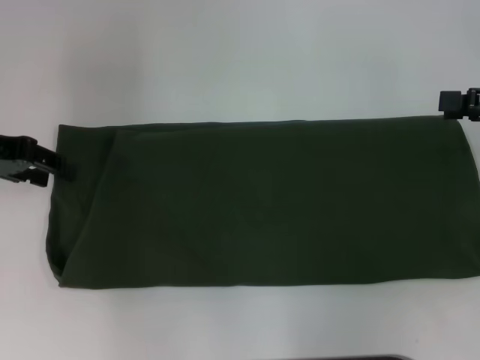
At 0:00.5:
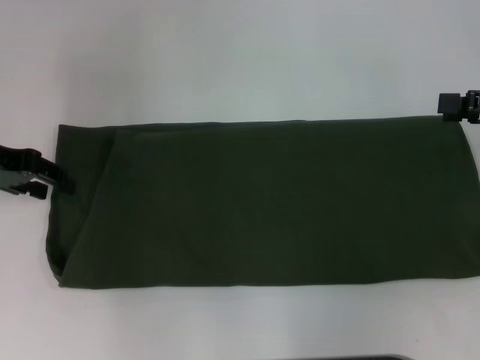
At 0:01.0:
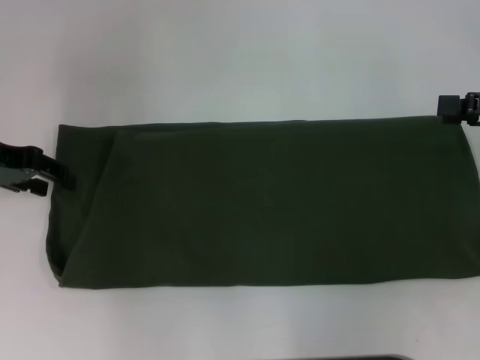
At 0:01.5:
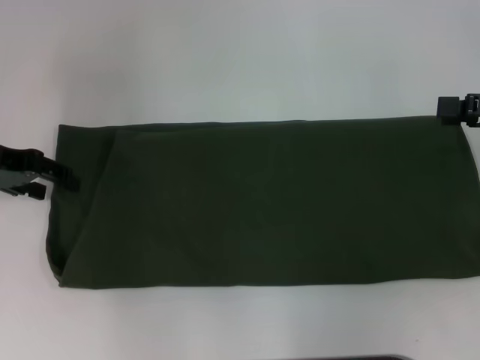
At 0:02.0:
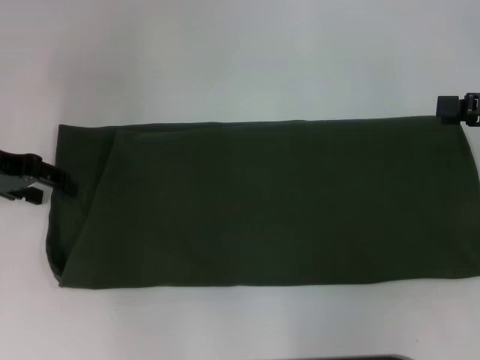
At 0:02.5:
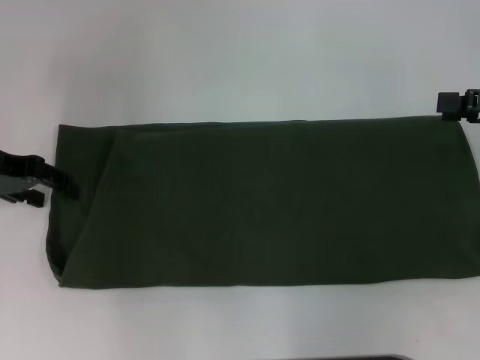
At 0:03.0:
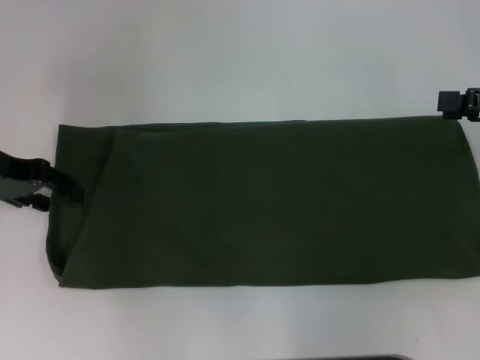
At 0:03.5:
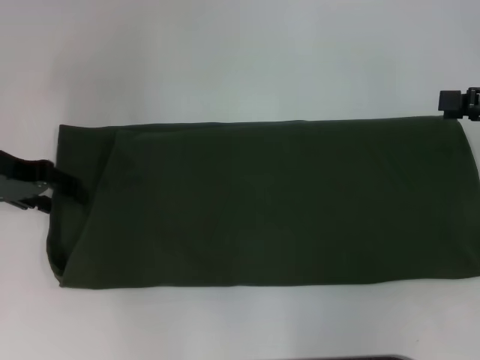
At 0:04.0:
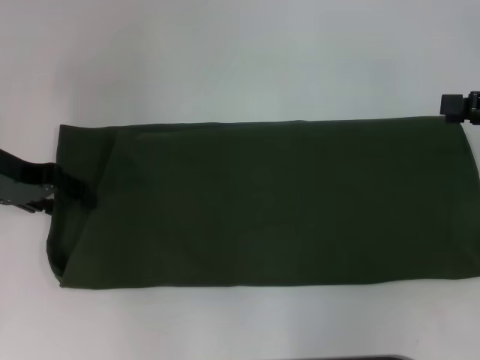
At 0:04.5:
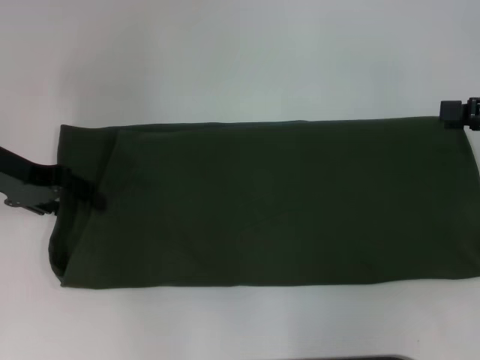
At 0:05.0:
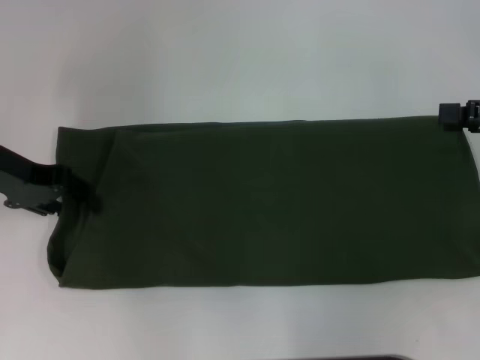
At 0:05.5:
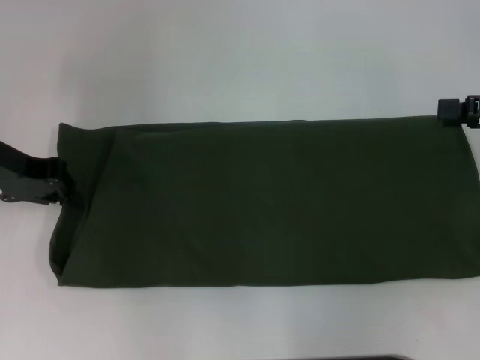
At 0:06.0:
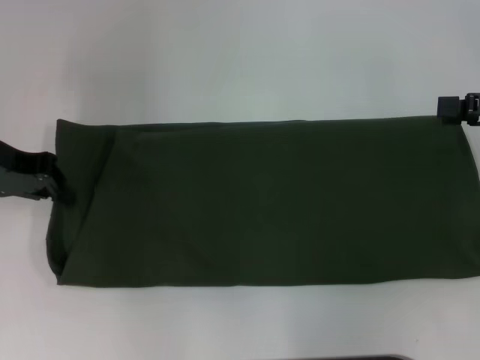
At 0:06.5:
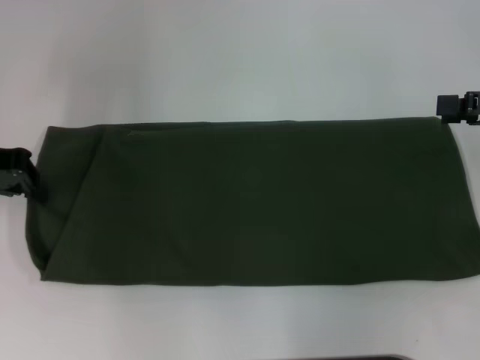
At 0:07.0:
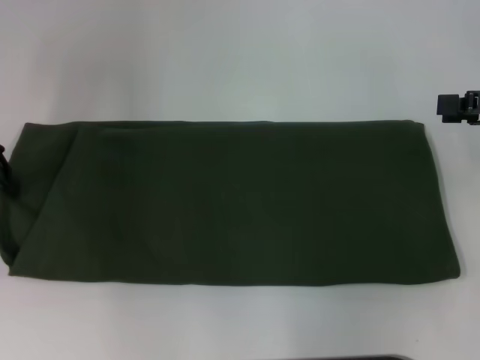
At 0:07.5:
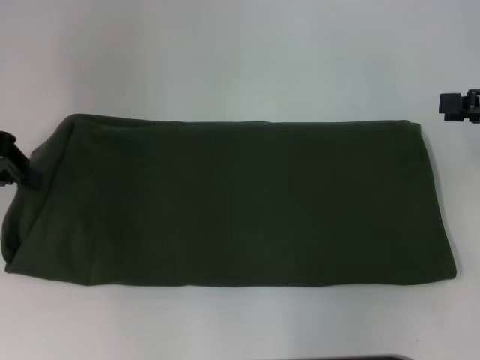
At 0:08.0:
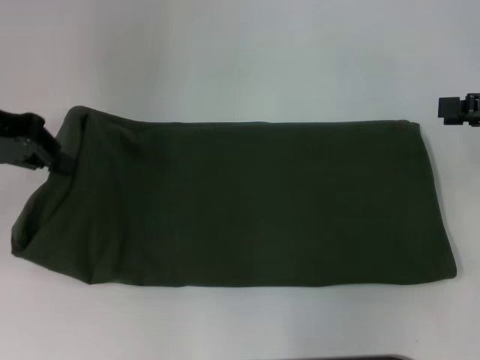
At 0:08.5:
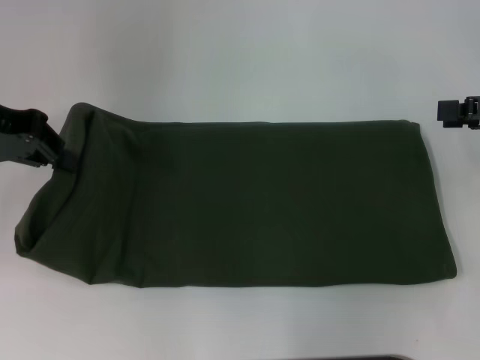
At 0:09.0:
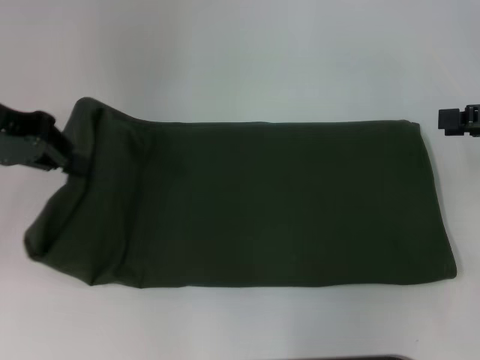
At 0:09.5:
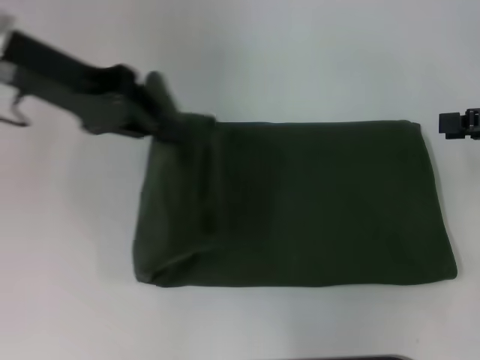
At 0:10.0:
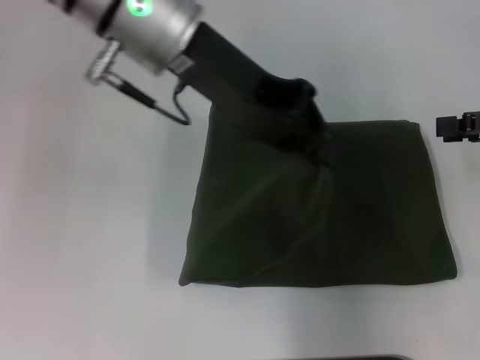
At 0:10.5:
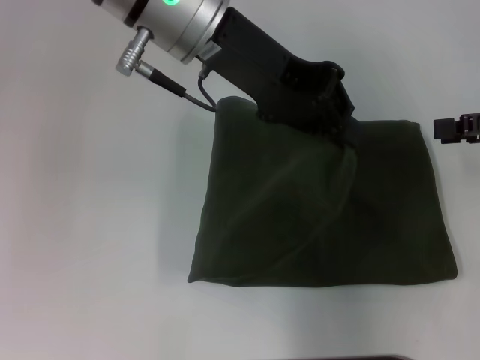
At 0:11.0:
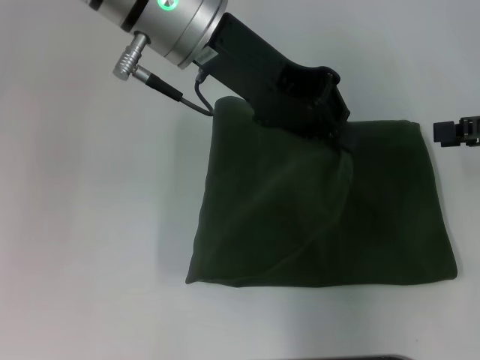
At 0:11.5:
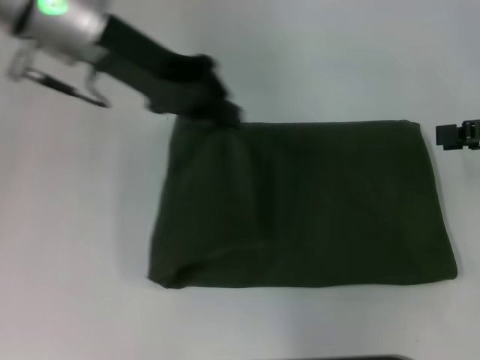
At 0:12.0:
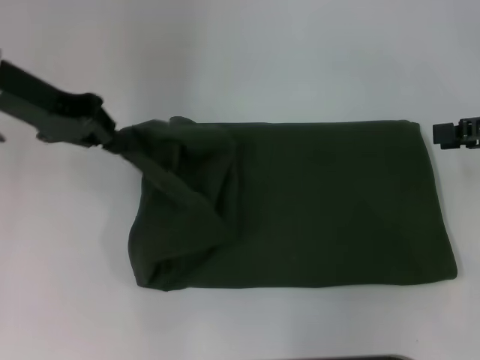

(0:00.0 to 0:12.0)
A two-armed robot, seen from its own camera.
0:00.0 - 0:04.0: The grippers make only small movements.
0:04.0 - 0:06.0: The left gripper closes up.
0:06.0 - 0:08.0: The left gripper ends up some 5 cm from where it was.
0:08.0 - 0:10.0: The left gripper is displaced to the right by approximately 20 cm.
0:10.0 - 0:12.0: The left gripper moves to the left, roughly 15 cm.

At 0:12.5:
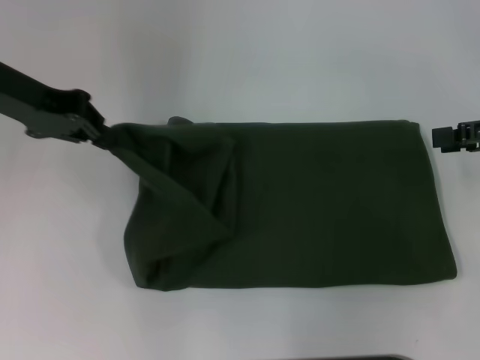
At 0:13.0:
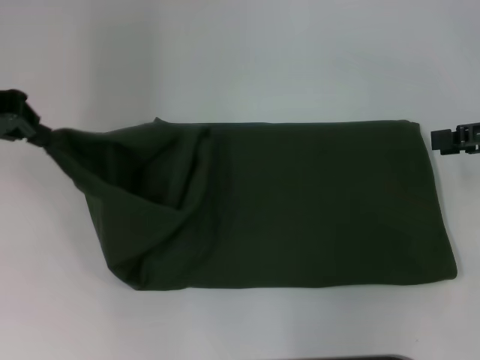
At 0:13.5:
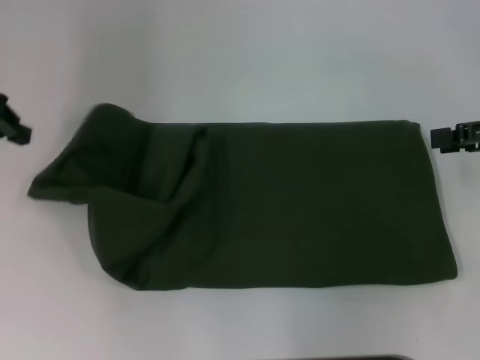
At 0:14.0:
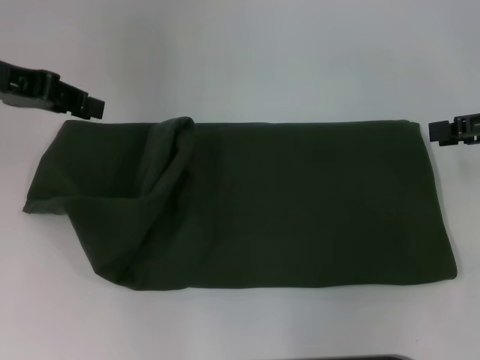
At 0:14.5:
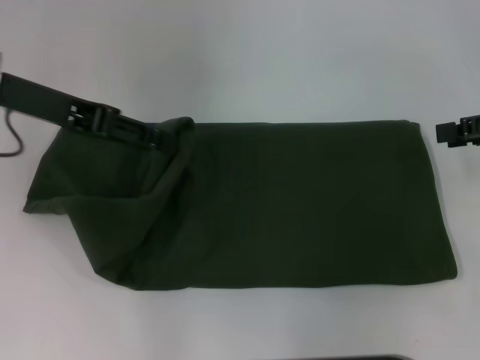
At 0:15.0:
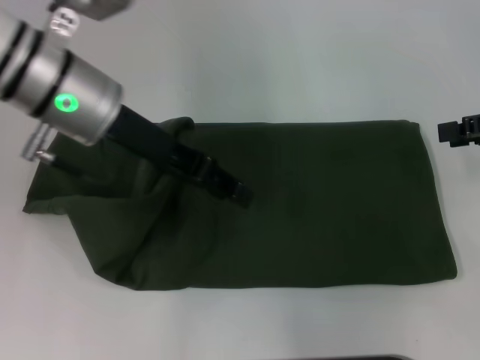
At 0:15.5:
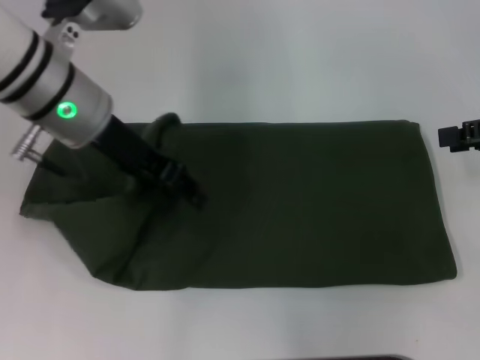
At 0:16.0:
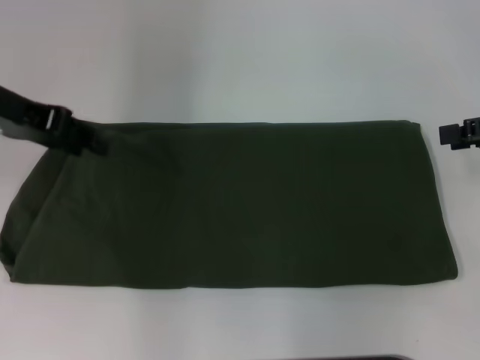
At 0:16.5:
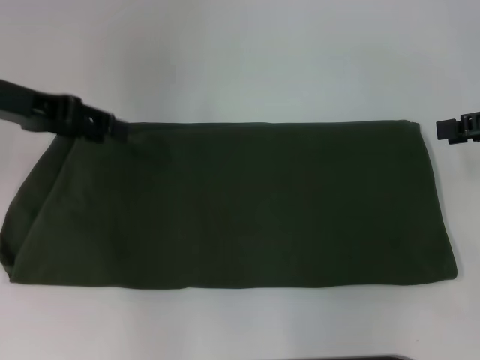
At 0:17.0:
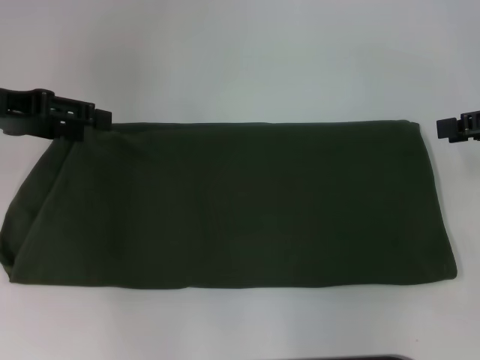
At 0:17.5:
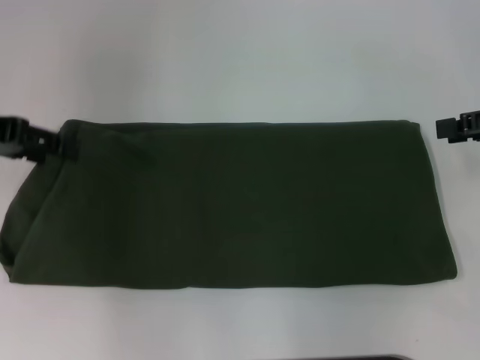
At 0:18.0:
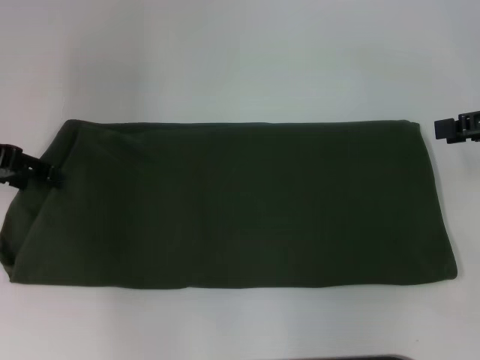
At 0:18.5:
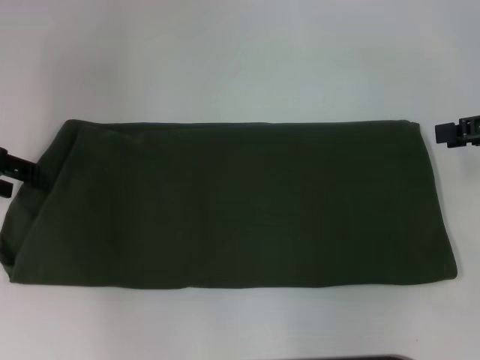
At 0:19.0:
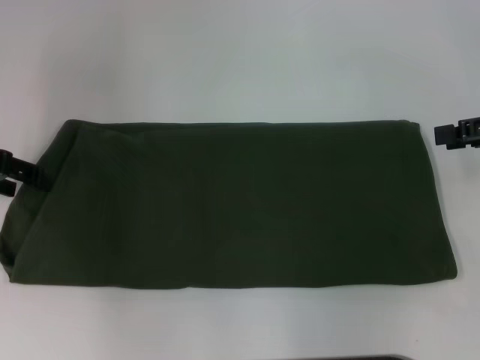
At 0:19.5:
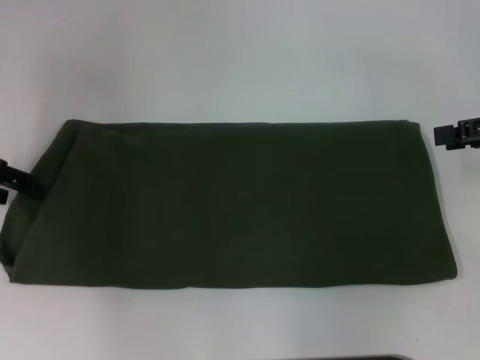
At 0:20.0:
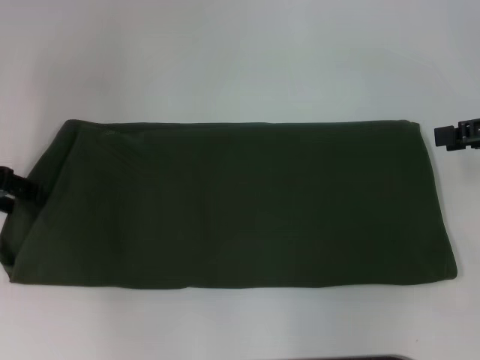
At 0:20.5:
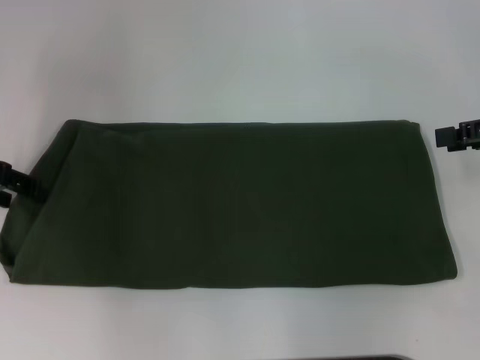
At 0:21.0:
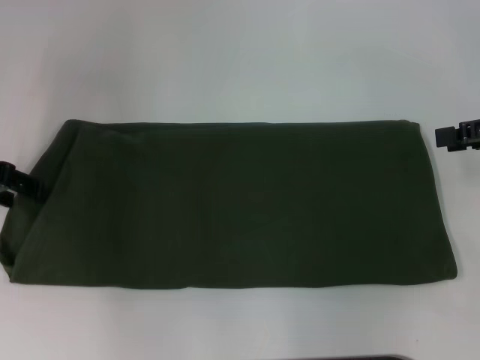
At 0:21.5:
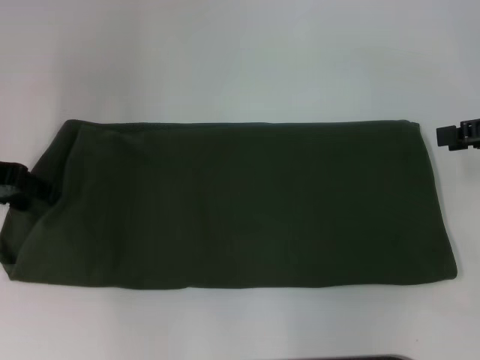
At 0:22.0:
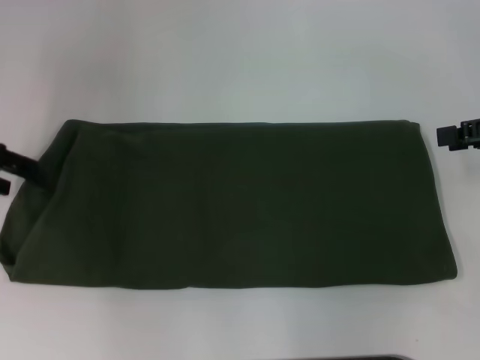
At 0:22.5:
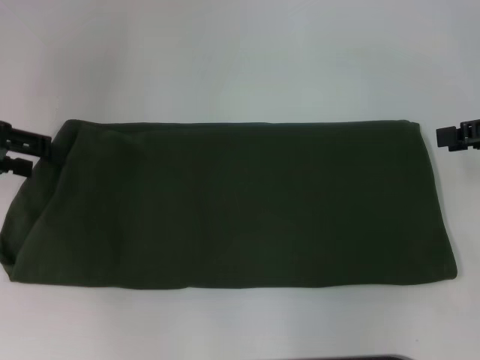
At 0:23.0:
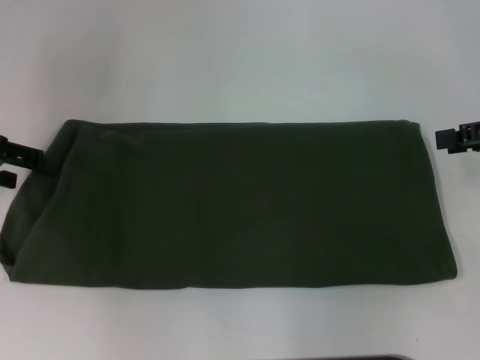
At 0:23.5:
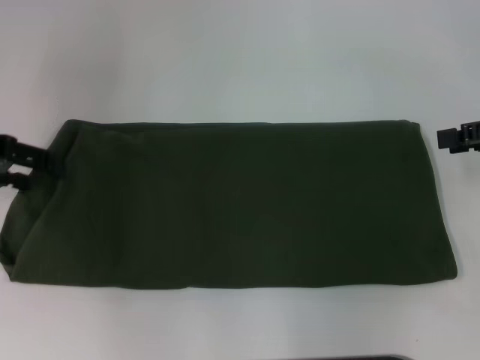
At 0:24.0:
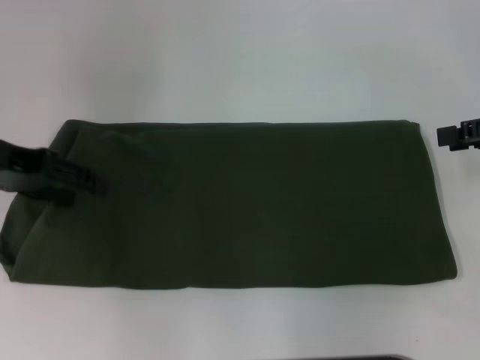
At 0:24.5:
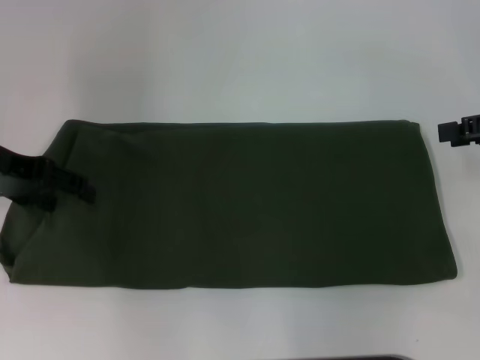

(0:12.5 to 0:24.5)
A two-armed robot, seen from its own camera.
0:12.5 - 0:14.5: The left gripper goes to the left and returns, about 5 cm each way, and opens its fingers.
0:14.5 - 0:16.5: The left gripper reaches some 10 cm to the right, then returns.
0:16.5 - 0:18.5: The left gripper shifts roughly 5 cm to the left.
0:20.5 - 0:24.5: The grippers stay close to where they were, moving slightly.

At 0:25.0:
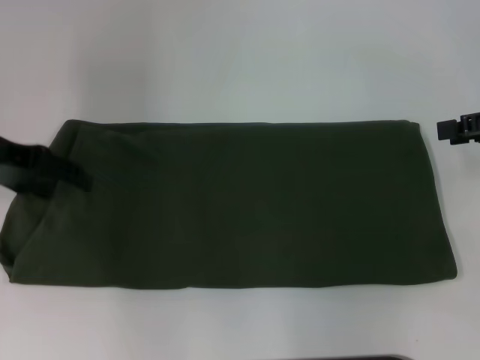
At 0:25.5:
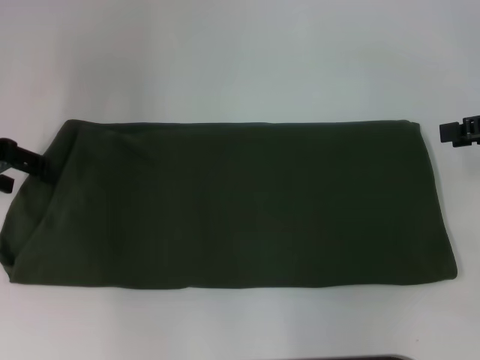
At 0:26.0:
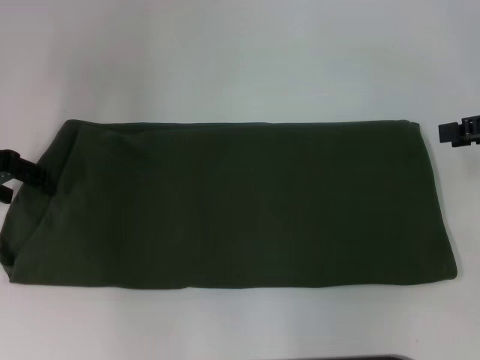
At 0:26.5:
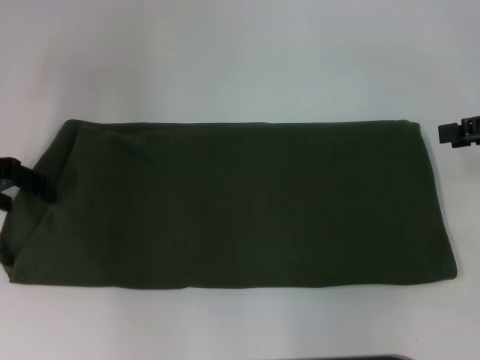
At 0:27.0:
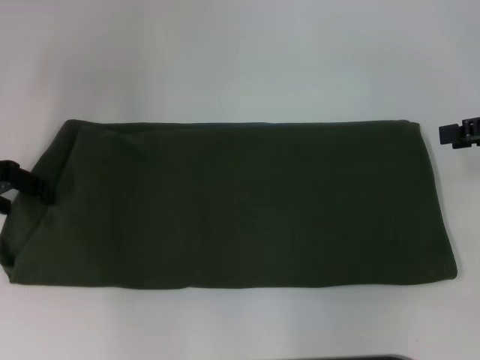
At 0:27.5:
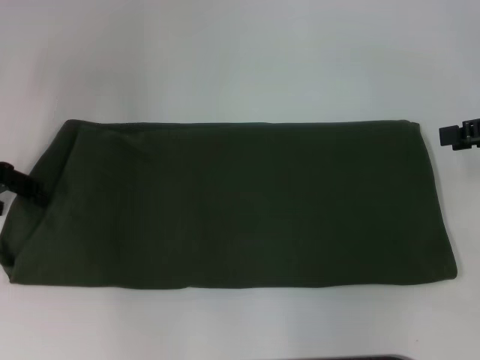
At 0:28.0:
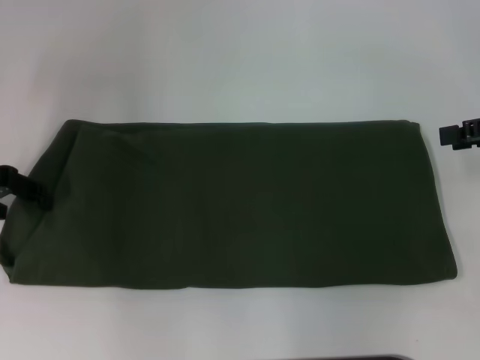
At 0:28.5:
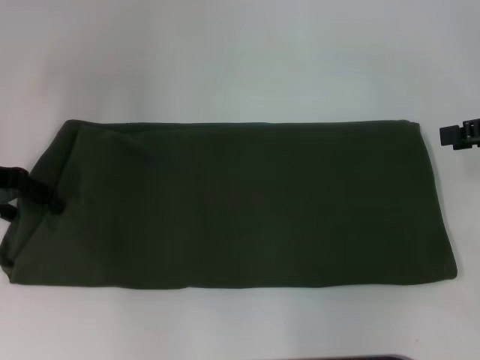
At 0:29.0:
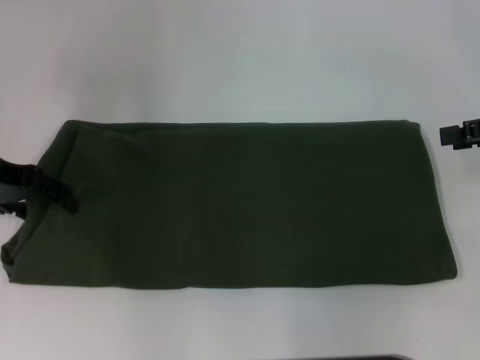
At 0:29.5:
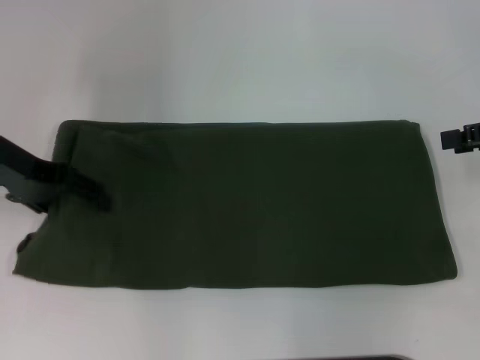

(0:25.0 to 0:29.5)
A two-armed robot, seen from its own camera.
0:25.0 - 0:29.5: The grippers make only small movements.
